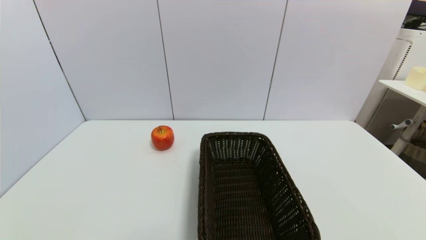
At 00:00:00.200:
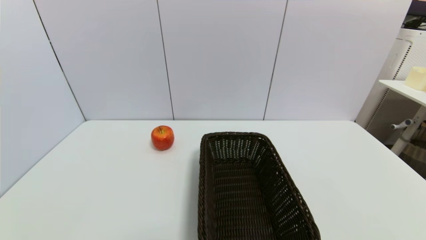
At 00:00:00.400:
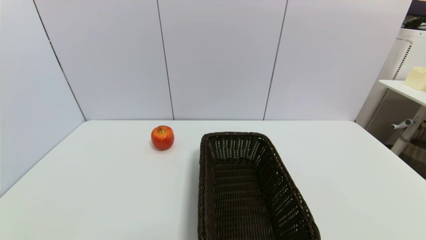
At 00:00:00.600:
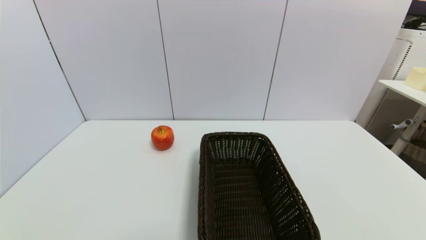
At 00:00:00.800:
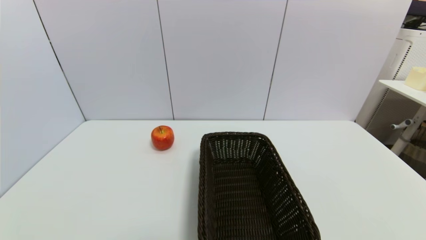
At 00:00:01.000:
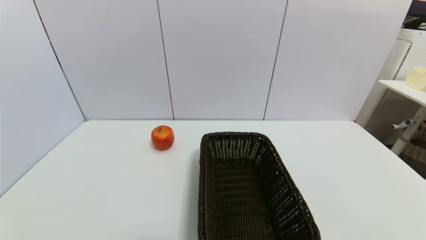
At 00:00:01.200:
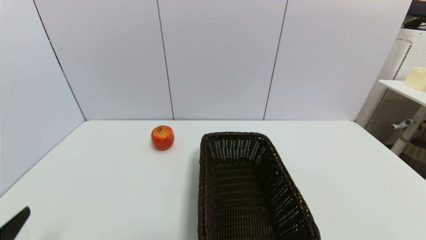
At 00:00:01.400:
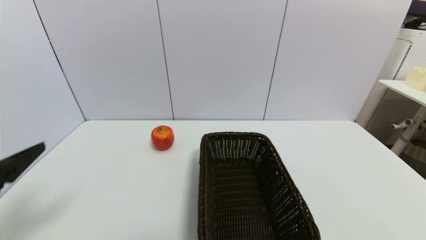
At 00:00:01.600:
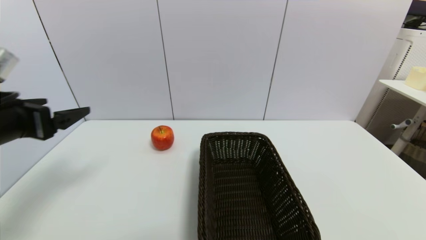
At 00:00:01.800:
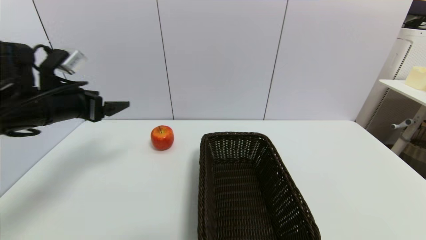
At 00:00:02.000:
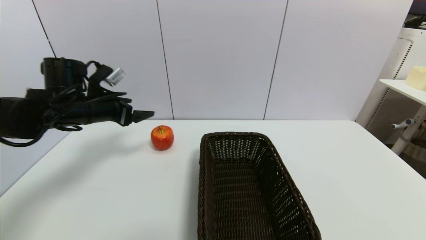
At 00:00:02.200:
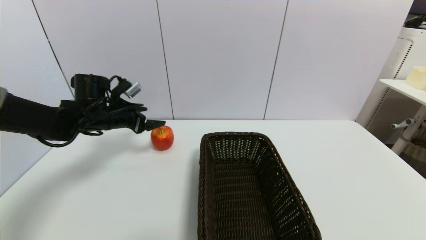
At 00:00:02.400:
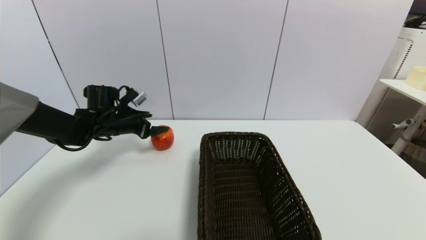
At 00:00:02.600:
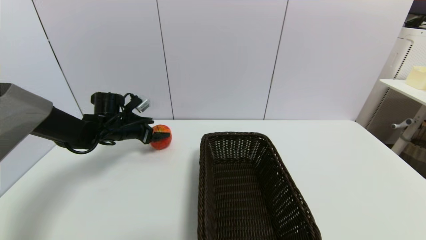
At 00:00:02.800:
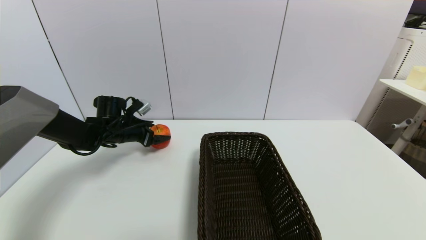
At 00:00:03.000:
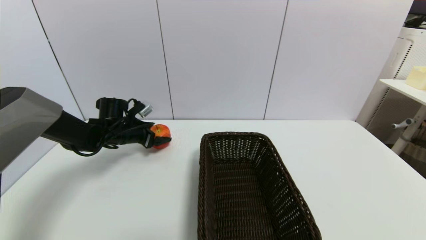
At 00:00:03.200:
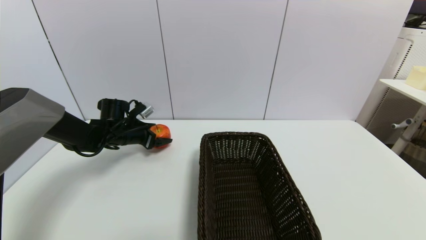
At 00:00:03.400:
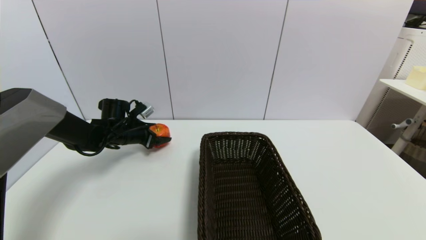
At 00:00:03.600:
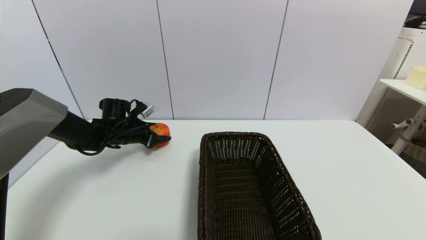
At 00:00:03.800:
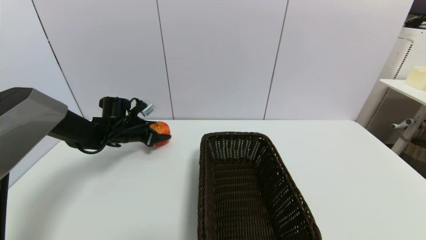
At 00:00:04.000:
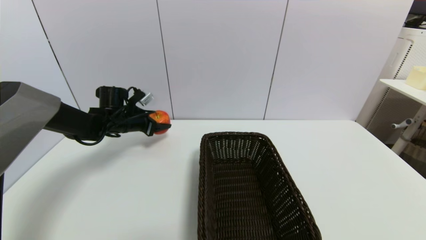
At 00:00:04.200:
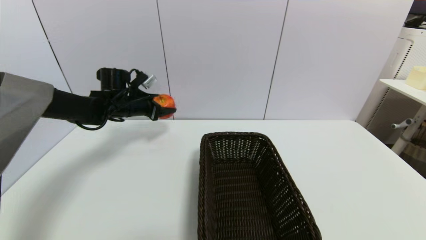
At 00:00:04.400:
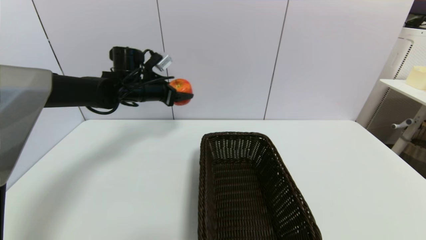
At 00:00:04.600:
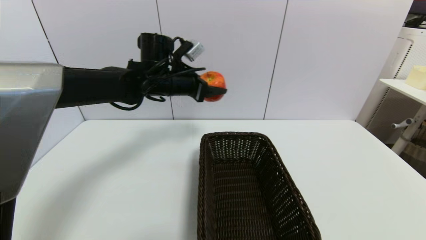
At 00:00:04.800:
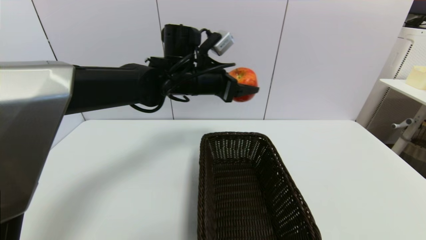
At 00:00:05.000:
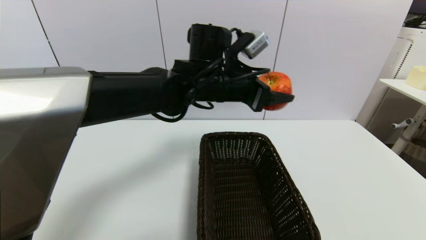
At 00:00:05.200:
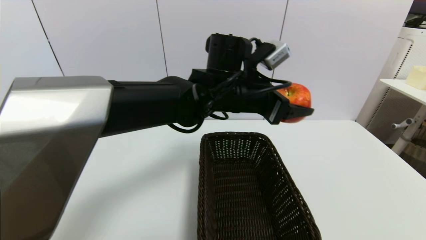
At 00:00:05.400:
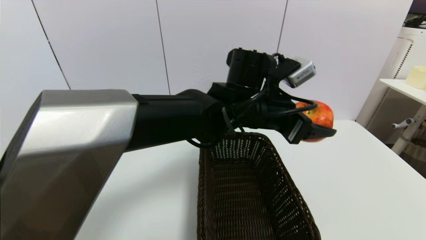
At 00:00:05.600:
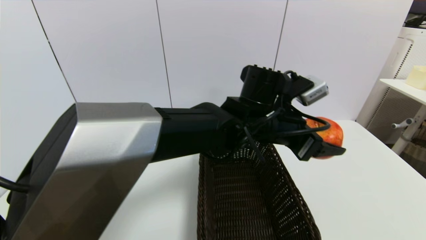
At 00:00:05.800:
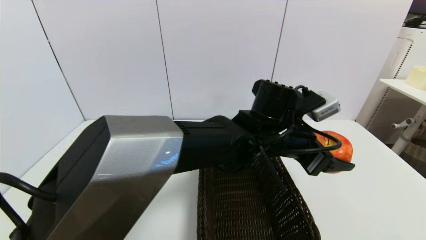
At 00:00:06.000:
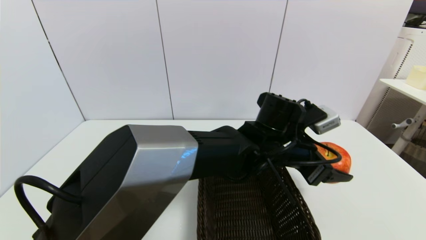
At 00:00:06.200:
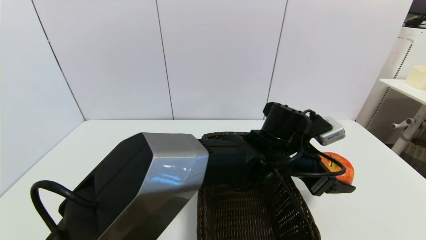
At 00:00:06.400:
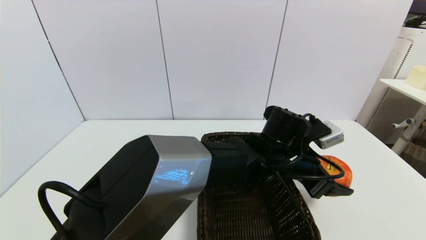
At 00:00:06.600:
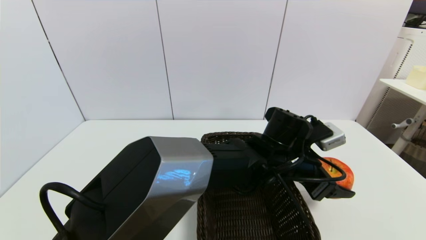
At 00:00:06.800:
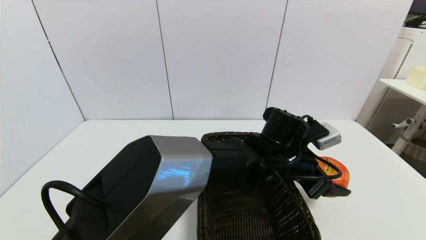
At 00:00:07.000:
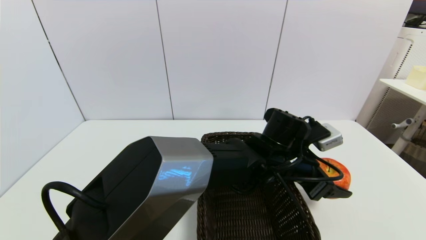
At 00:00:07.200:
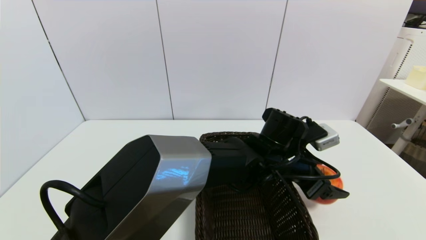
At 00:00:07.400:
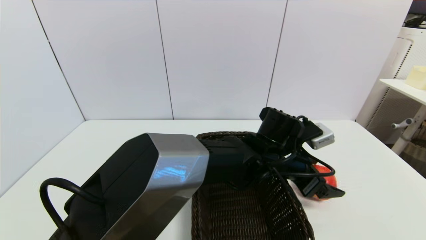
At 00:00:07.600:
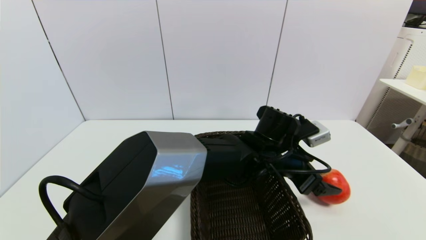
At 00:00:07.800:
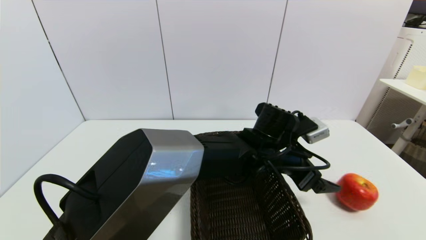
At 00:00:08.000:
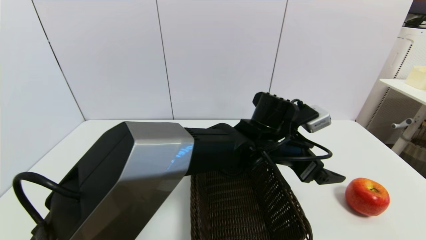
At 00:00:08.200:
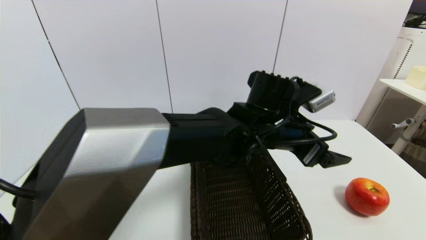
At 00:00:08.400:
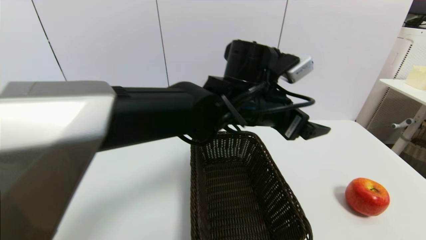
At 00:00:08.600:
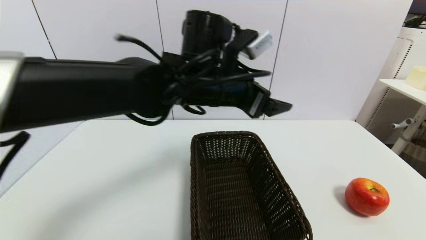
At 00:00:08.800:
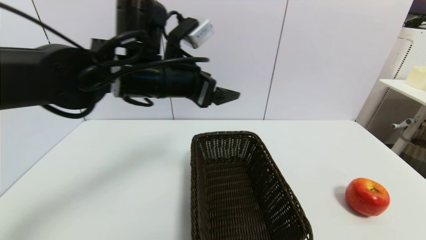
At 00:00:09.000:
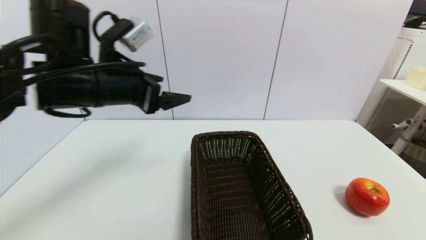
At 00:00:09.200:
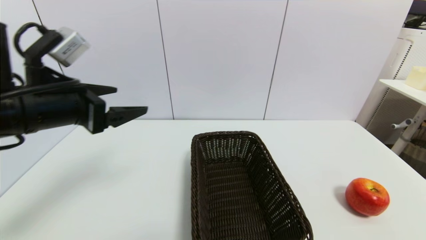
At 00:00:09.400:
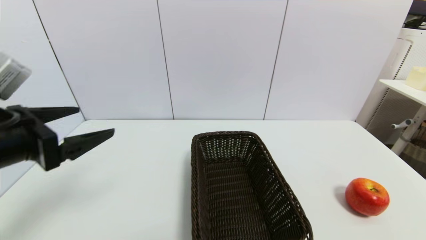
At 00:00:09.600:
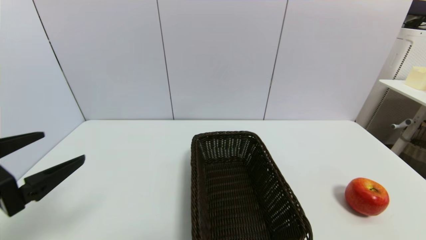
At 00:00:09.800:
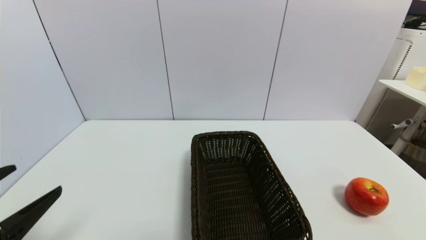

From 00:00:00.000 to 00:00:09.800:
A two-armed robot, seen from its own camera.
Task of the whole recording: put the apple in the designated position.
Step, from 00:00:01.200 to 00:00:03.600: Grasp the apple with left gripper.
Step, from 00:00:03.800 to 00:00:08.000: Place the apple on the table with left gripper.
From 00:00:00.000 to 00:00:01.400: The left gripper moves upward and forward, about 20 cm.
From 00:00:01.400 to 00:00:02.800: The left gripper shifts some 35 cm forward and downward.
From 00:00:02.800 to 00:00:04.200: The left gripper goes some 10 cm upward, and closes.
From 00:00:04.200 to 00:00:05.600: The left gripper moves to the right and backward, approximately 35 cm.
From 00:00:05.600 to 00:00:07.000: The left gripper goes some 10 cm downward.
From 00:00:07.000 to 00:00:08.400: The left gripper heads upward and to the left, covering some 15 cm, and opens its fingers.
From 00:00:08.400 to 00:00:09.800: The left gripper moves to the left and backward, approximately 40 cm.

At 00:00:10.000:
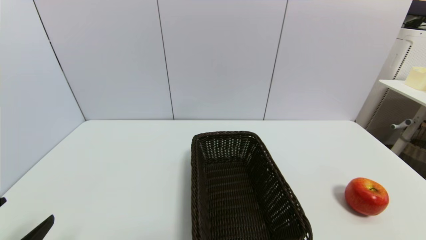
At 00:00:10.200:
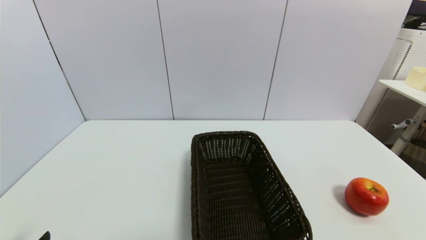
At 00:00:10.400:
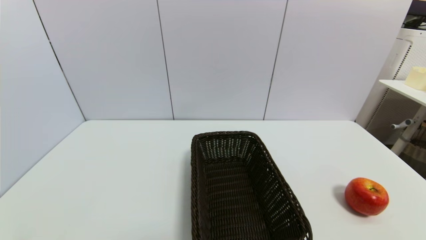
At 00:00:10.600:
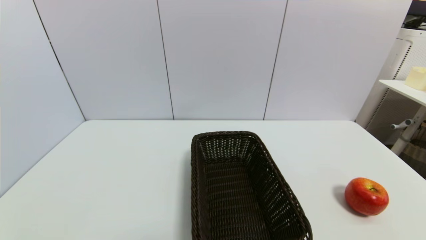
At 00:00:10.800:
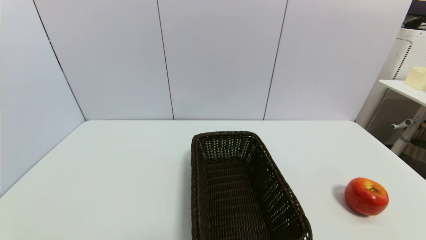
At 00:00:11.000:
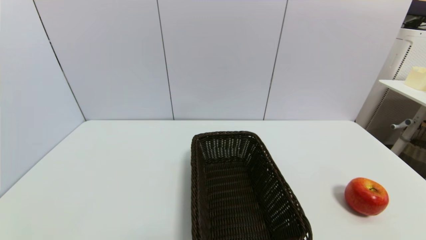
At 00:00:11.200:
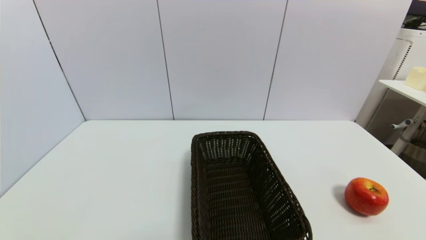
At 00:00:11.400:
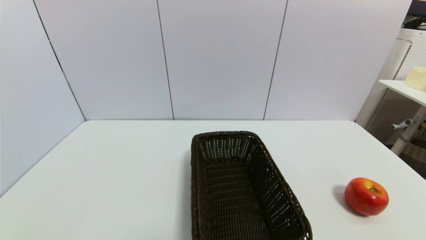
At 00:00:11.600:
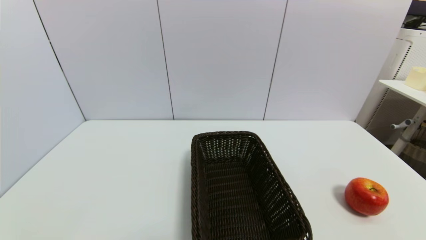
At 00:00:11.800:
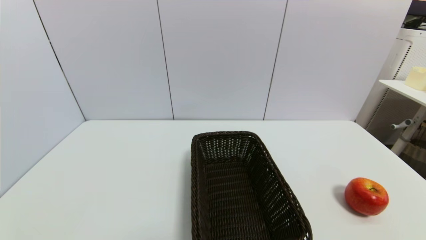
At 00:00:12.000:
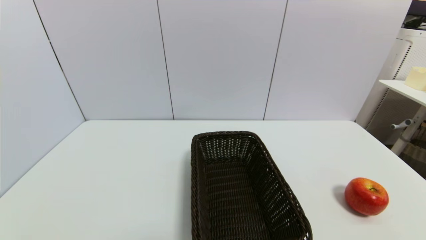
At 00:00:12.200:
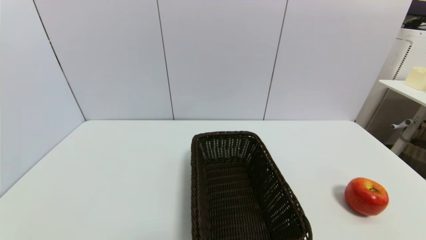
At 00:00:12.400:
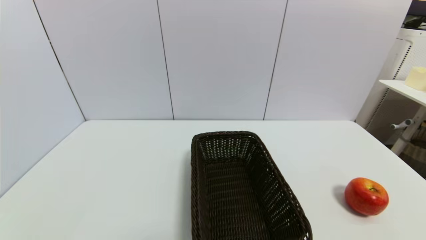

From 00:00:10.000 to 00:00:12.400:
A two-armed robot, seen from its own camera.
Task of the whole recording: put the apple in the designated position.
From 00:00:11.200 to 00:00:12.400: Neither gripper changes place.
